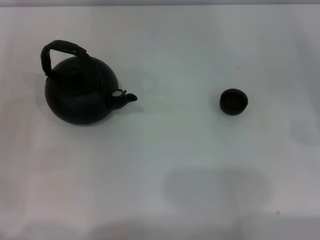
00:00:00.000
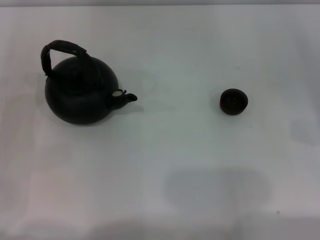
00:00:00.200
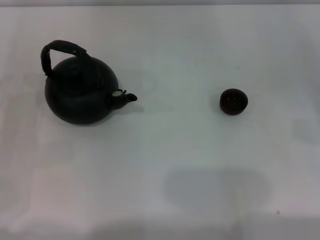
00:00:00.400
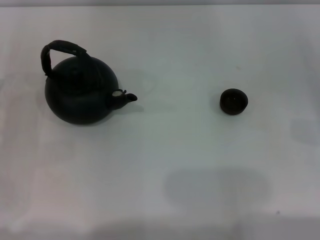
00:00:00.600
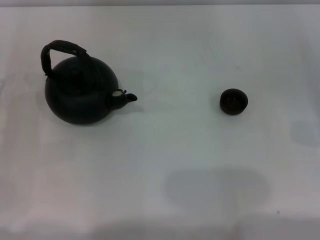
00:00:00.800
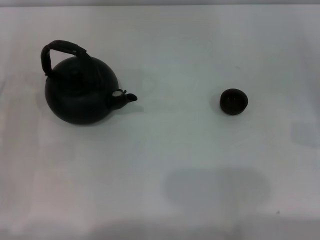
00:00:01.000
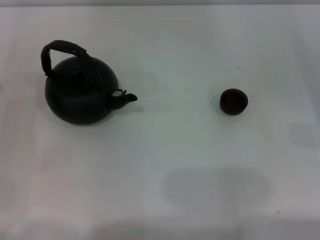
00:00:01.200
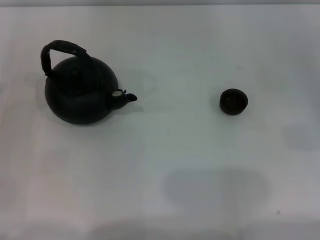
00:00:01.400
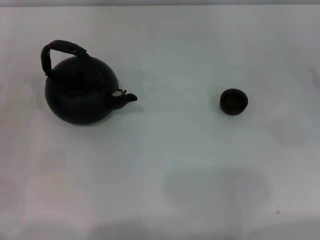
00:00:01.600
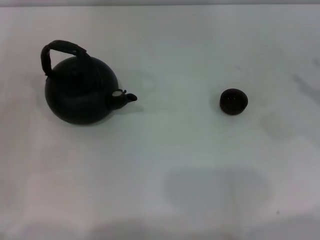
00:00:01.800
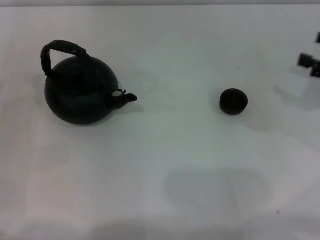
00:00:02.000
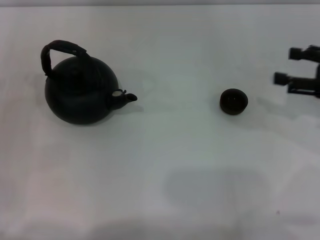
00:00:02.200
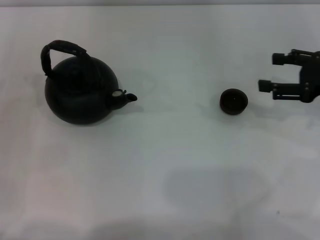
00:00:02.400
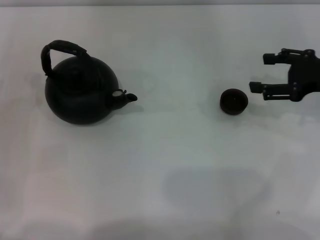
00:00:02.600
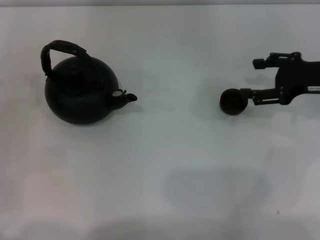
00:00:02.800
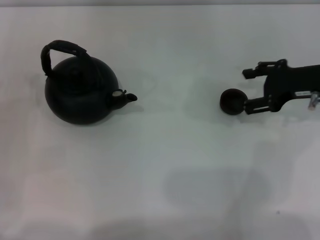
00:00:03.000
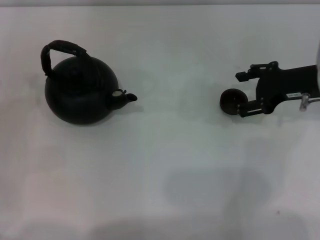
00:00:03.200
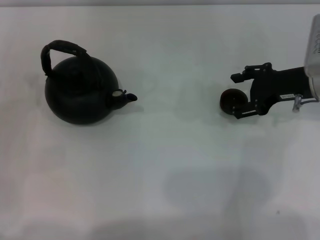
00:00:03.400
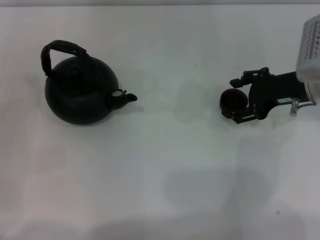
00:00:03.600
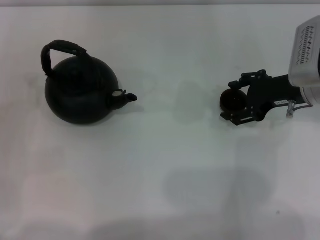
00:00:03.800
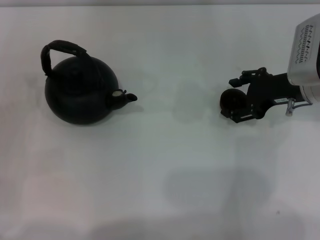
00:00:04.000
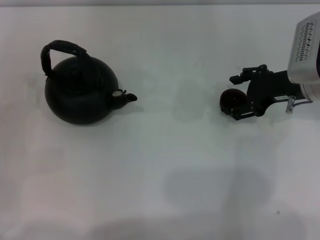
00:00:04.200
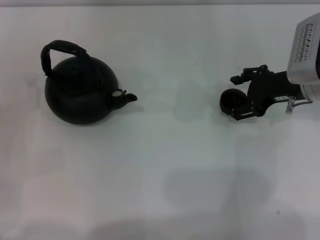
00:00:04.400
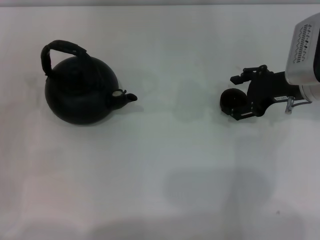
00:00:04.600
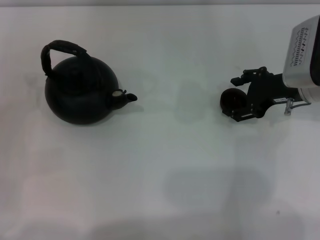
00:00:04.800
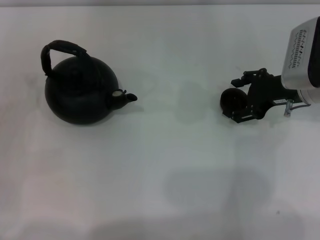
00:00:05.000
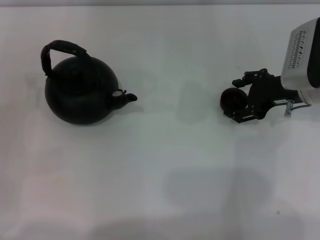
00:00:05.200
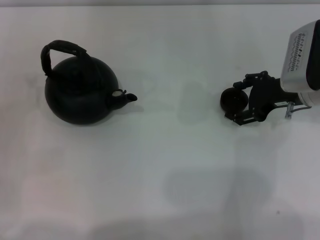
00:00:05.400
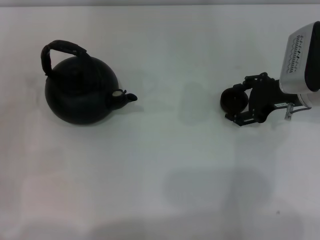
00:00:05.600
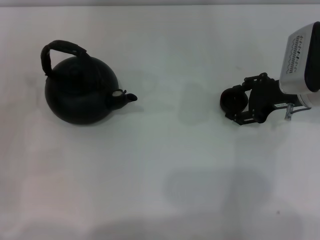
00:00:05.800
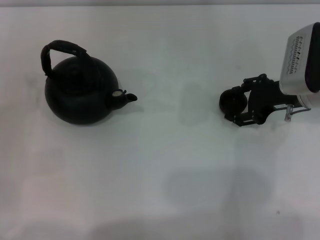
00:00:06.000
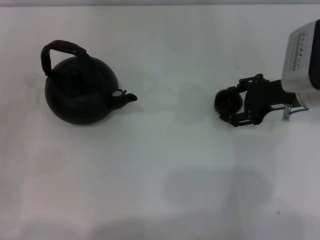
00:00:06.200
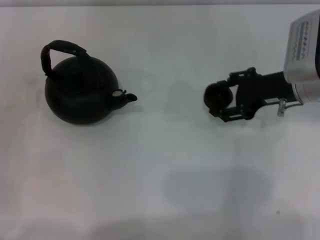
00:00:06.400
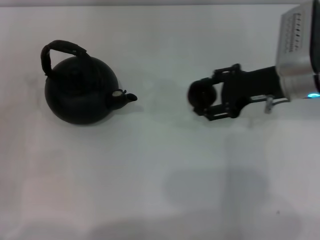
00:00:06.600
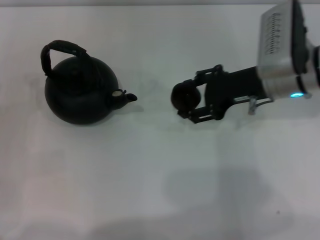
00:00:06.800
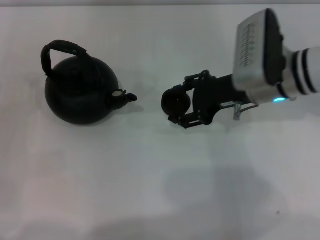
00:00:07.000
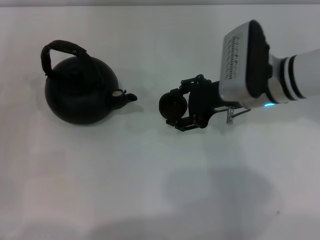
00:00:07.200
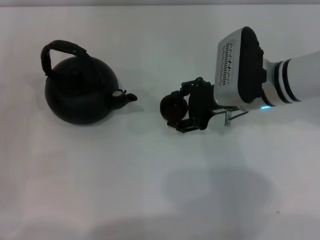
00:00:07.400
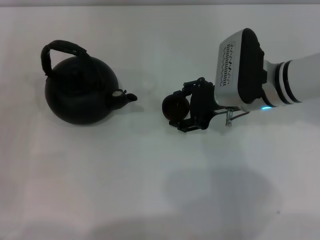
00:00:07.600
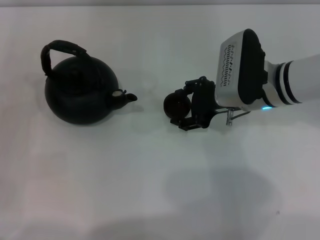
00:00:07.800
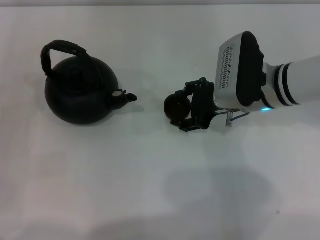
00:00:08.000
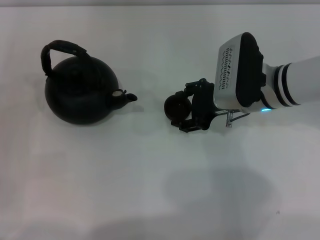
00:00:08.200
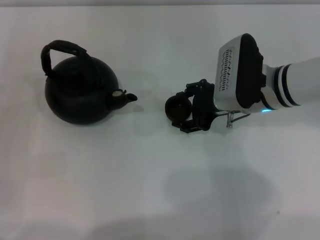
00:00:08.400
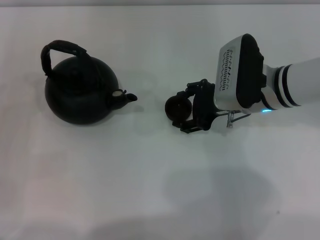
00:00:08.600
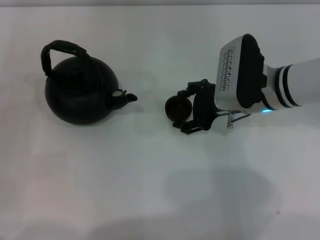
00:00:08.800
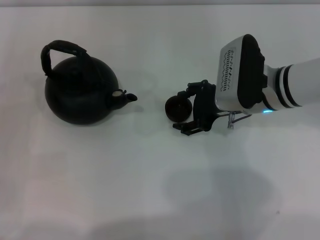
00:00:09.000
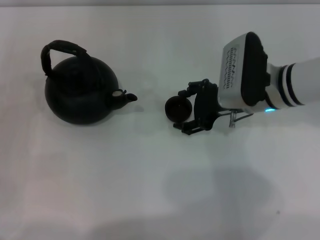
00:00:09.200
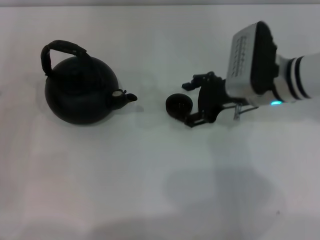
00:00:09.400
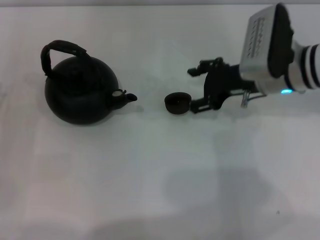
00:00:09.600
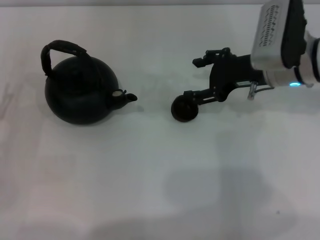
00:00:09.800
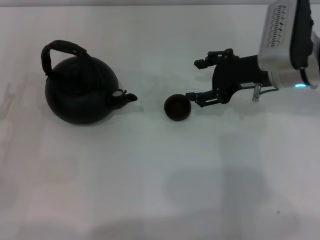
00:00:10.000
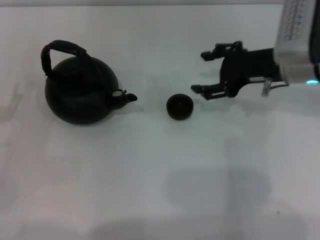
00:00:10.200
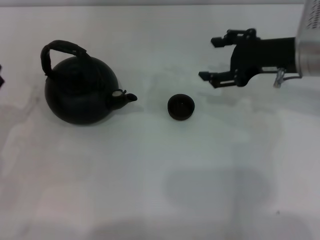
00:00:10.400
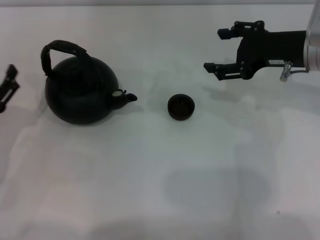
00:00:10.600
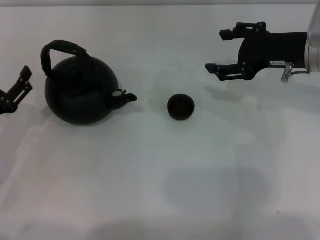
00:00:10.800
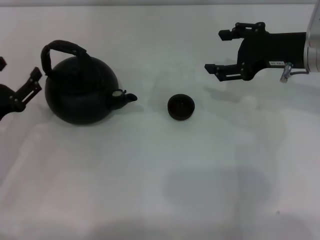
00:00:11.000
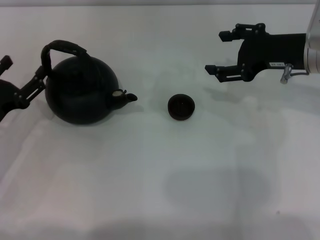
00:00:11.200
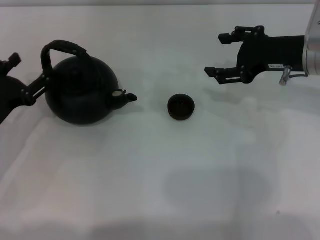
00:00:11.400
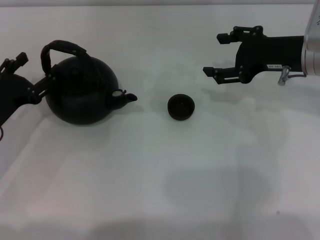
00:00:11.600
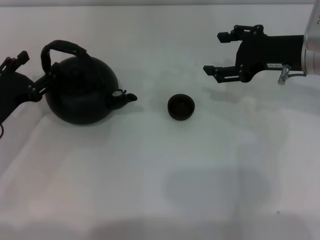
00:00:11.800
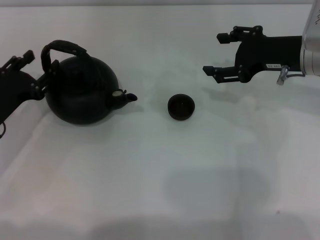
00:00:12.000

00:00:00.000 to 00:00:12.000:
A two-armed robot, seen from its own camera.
Task of the whole recording: Grasp the handle of the teapot with one hand and pour tea into the teacup.
Step, 00:00:00.000 to 00:00:06.200: Pick up the teacup with the right gripper.
Step, 00:00:06.400 to 00:00:10.200: Place the teacup in the center of view with the right gripper.
00:00:01.600 to 00:00:03.000: The right gripper is displaced to the left and forward by roughly 15 cm.
00:00:03.000 to 00:00:04.400: There are only small adjustments of the grippers.
00:00:04.400 to 00:00:06.000: Both grippers stay put.
00:00:06.000 to 00:00:07.600: The right gripper moves to the left, roughly 10 cm.
00:00:07.600 to 00:00:09.000: Neither gripper changes place.
00:00:09.000 to 00:00:10.400: The right gripper travels to the right and upward by some 10 cm.
00:00:10.400 to 00:00:12.000: The left gripper heads forward, covering some 5 cm.

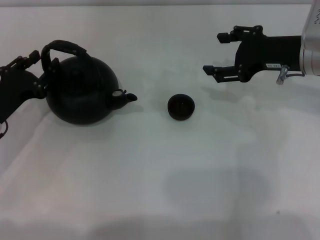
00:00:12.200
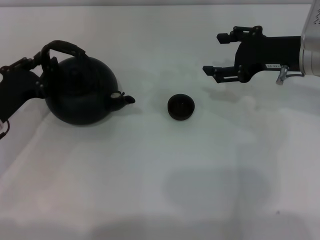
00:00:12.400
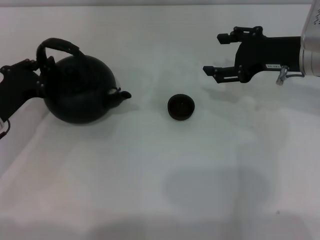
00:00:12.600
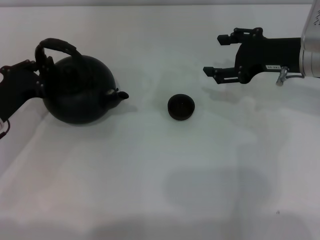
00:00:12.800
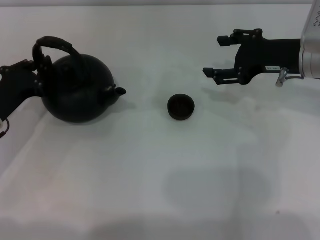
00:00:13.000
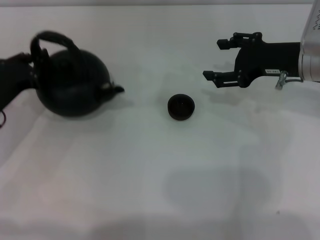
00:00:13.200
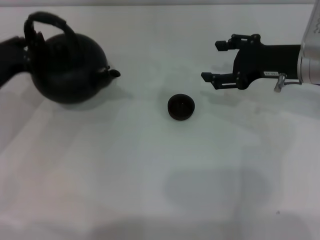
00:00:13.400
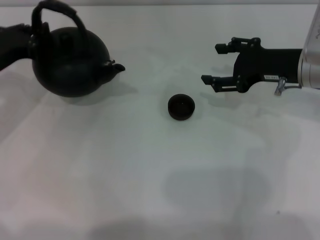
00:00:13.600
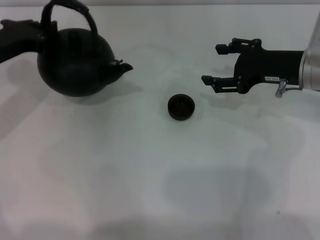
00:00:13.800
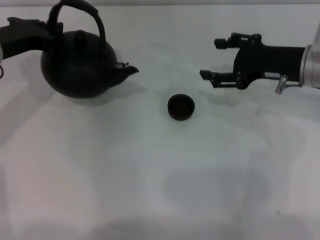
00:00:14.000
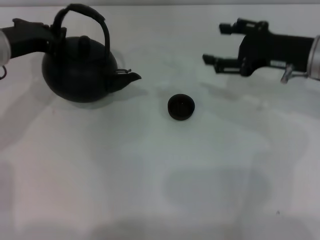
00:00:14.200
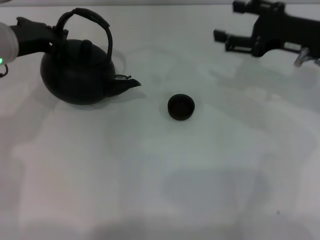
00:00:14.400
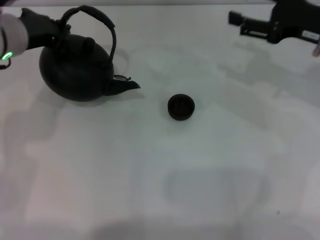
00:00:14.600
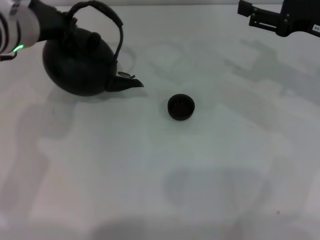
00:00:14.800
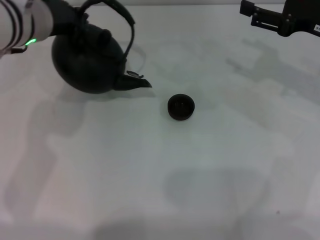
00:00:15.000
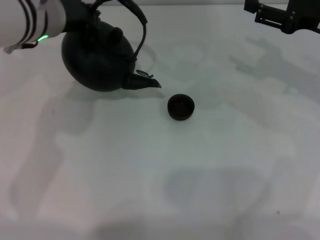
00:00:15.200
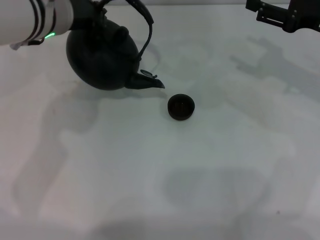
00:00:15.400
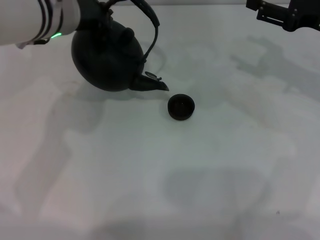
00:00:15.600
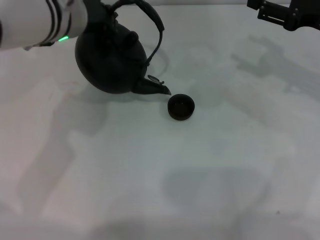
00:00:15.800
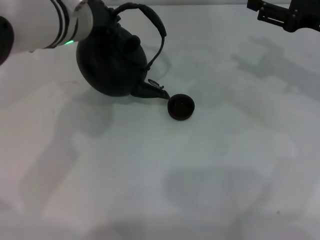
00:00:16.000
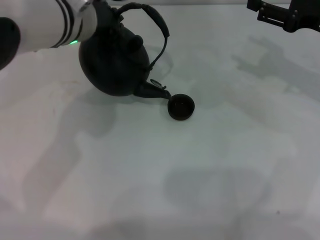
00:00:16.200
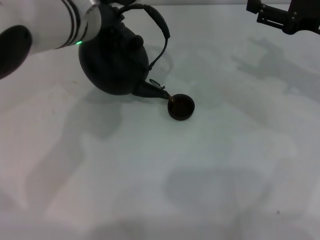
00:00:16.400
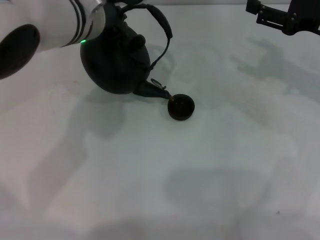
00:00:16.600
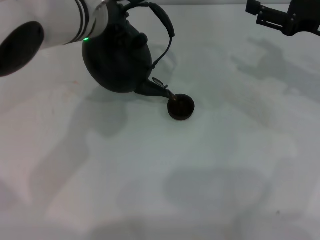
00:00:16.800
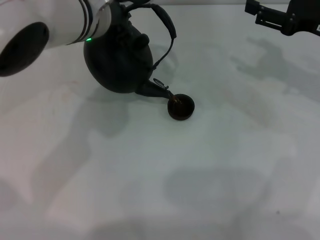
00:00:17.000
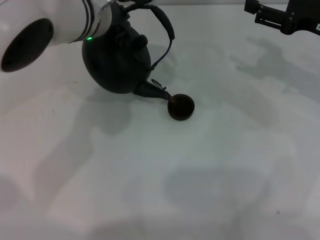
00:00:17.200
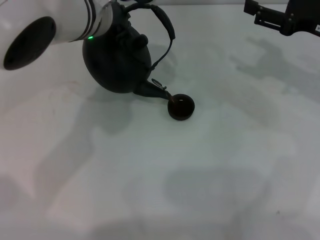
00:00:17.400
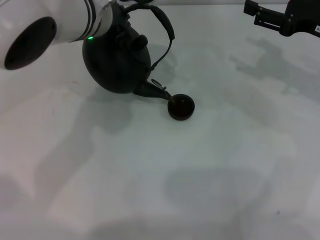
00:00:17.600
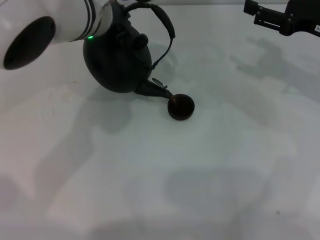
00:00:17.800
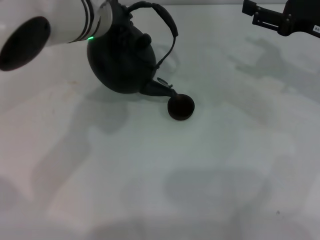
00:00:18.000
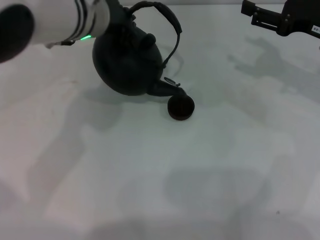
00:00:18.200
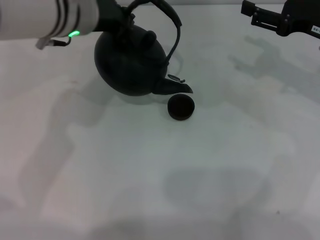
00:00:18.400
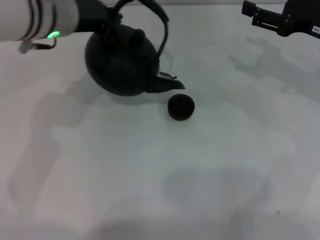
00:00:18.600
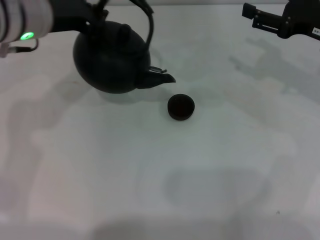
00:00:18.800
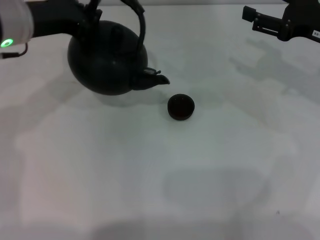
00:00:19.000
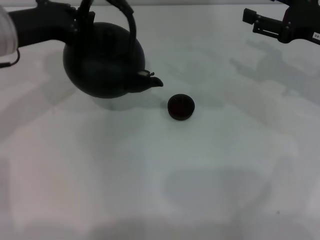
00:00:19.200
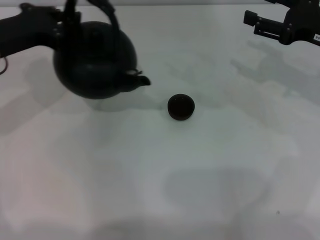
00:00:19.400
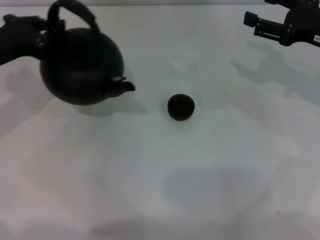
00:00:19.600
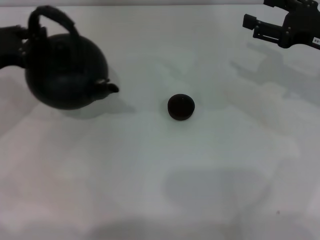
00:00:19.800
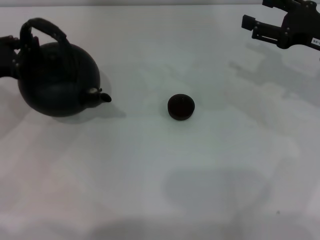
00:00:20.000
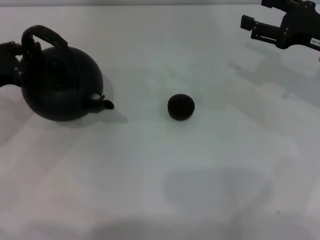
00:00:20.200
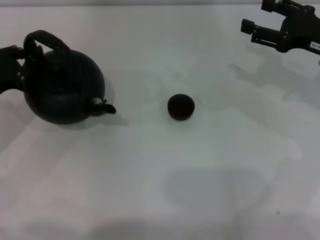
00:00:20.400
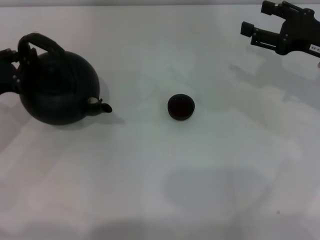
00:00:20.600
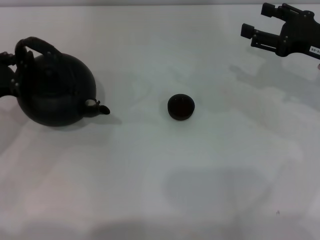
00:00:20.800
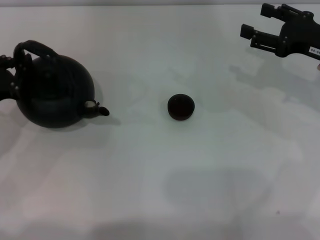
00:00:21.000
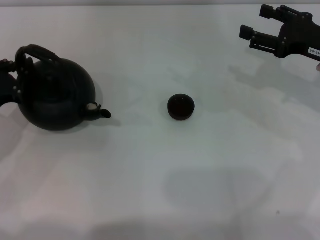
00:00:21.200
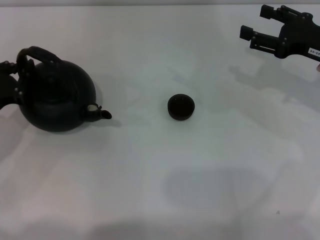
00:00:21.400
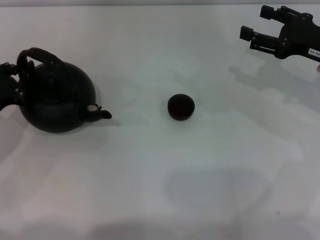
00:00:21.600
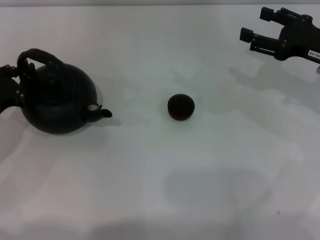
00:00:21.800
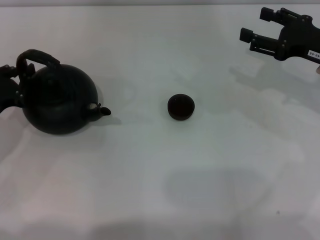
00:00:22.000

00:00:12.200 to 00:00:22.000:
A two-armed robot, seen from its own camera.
Task of the whole recording: Grasp the handle of the teapot with one hand and pour tea into the teacup.
Step, 00:00:14.200 to 00:00:18.400: Pour tea into the teacup with the left gripper.
00:00:12.200 to 00:00:13.600: The left gripper shifts some 10 cm upward and forward, and closes.
00:00:13.600 to 00:00:15.000: The right gripper travels to the right by approximately 5 cm. The left gripper heads to the right and upward, covering approximately 15 cm.
00:00:15.000 to 00:00:16.400: The left gripper moves to the right, about 5 cm.
00:00:16.400 to 00:00:17.800: The grippers move only a little.
00:00:17.800 to 00:00:19.200: The left gripper is displaced to the left by approximately 15 cm.
00:00:19.200 to 00:00:20.600: The left gripper moves downward, to the left and backward, about 15 cm.
00:00:20.600 to 00:00:22.000: The grippers move only a little.
